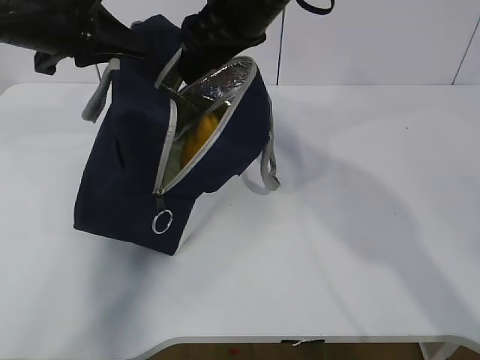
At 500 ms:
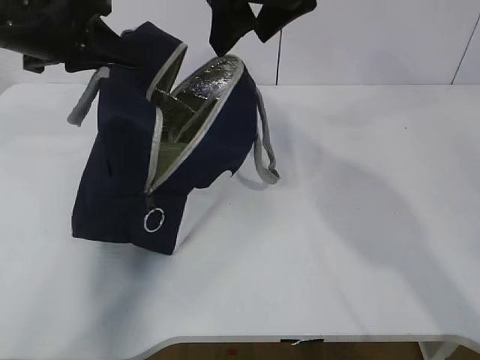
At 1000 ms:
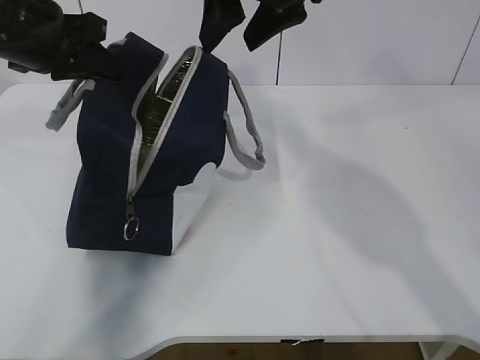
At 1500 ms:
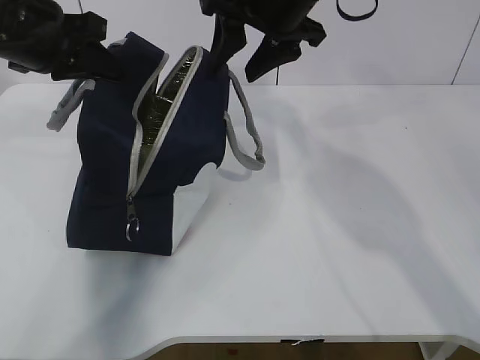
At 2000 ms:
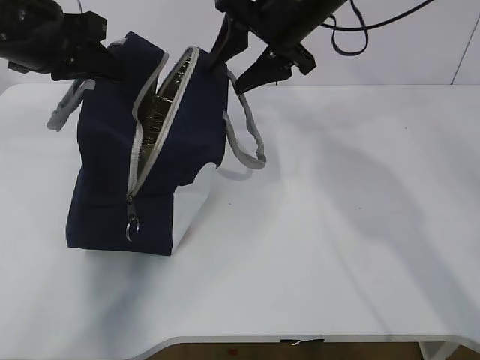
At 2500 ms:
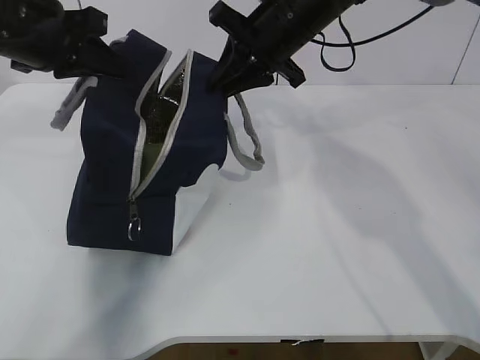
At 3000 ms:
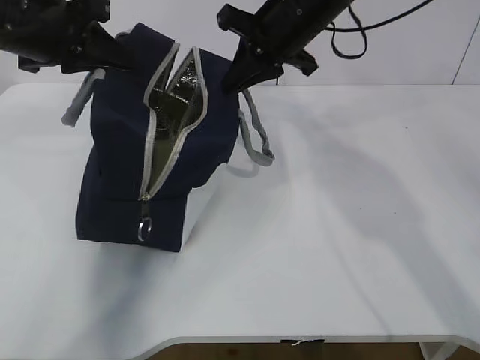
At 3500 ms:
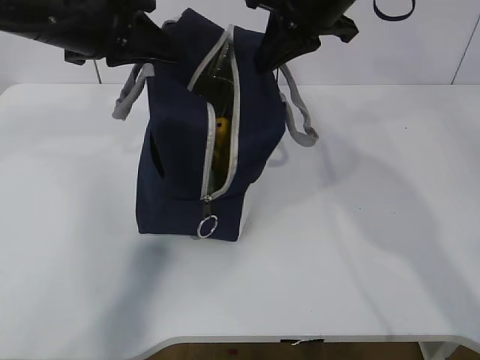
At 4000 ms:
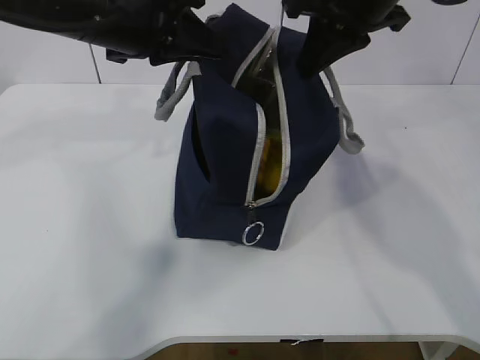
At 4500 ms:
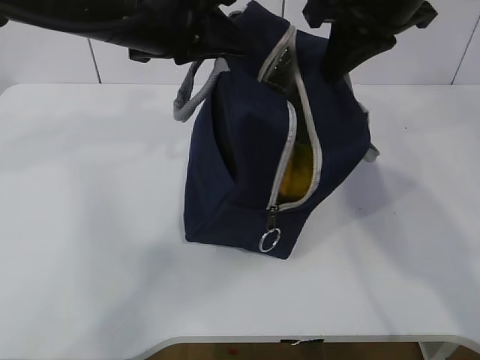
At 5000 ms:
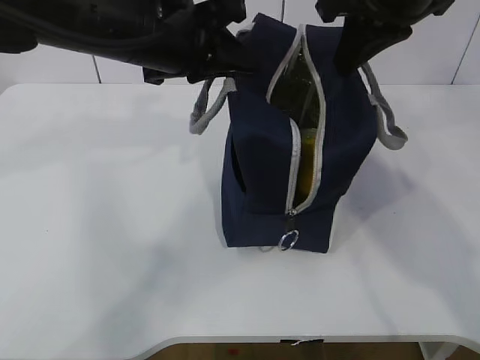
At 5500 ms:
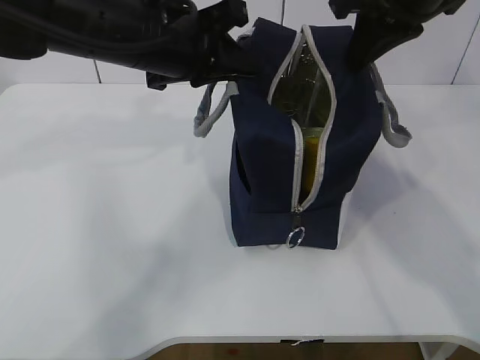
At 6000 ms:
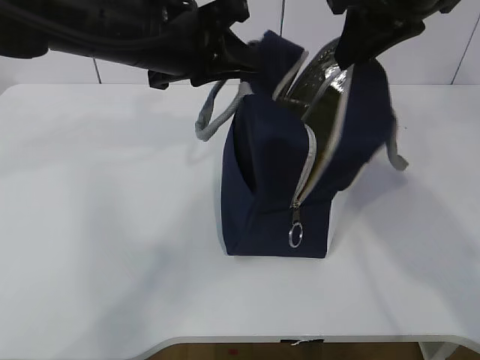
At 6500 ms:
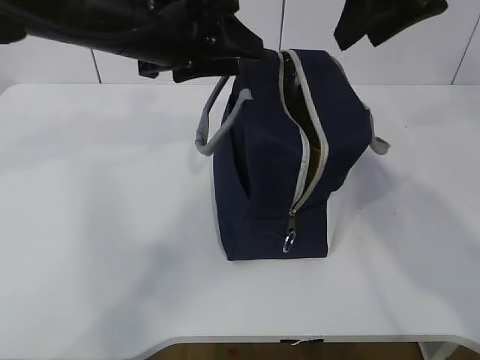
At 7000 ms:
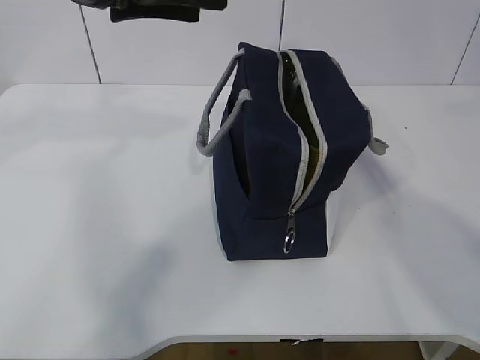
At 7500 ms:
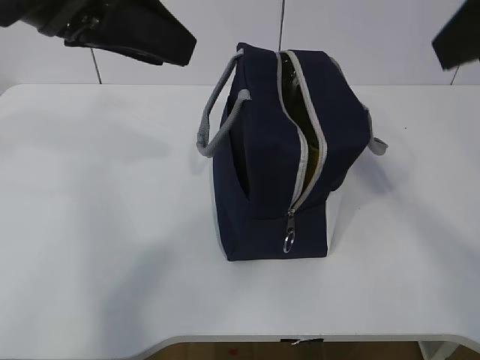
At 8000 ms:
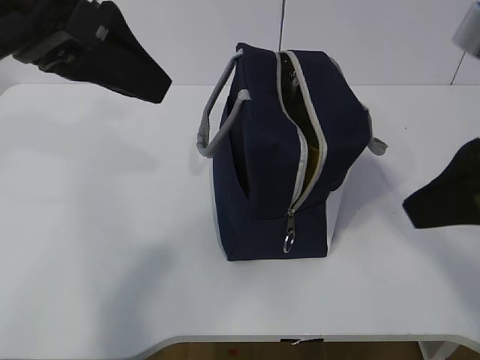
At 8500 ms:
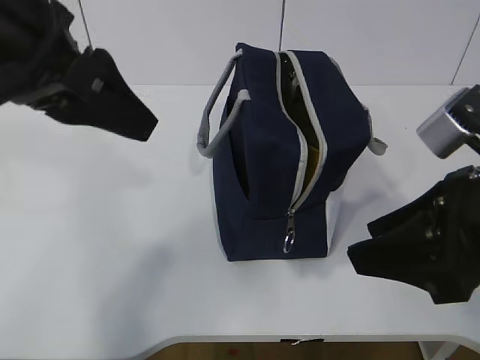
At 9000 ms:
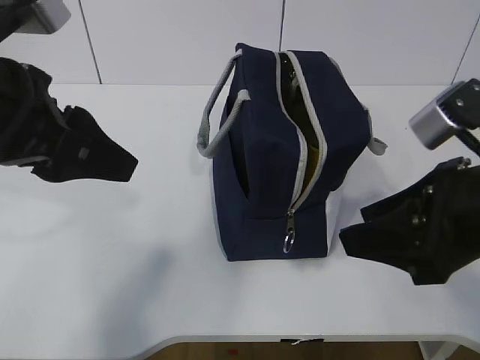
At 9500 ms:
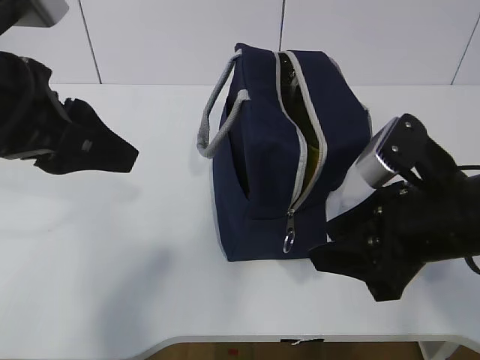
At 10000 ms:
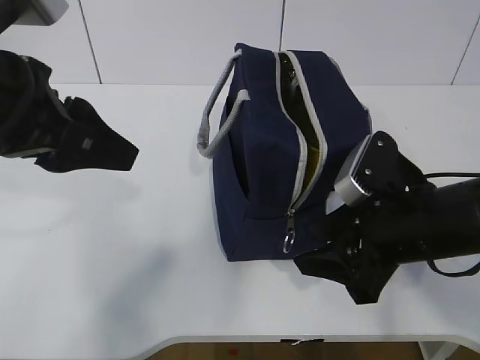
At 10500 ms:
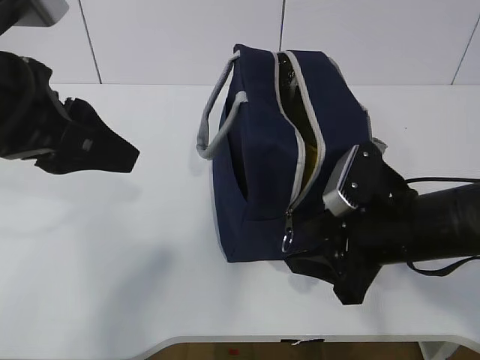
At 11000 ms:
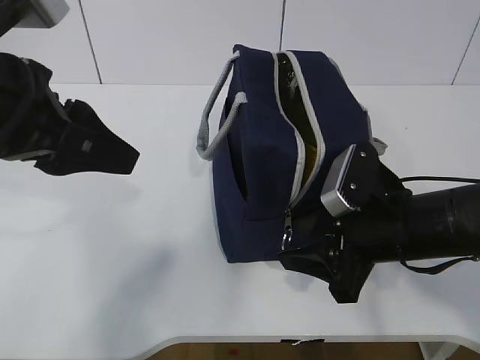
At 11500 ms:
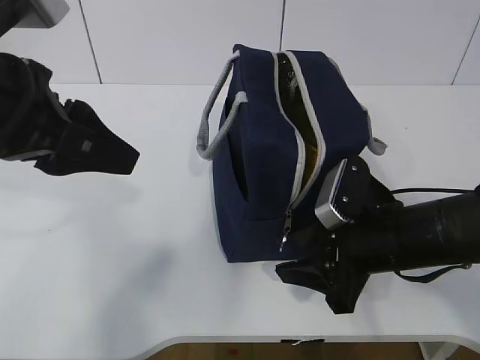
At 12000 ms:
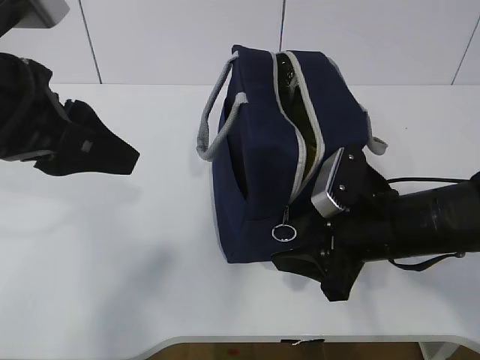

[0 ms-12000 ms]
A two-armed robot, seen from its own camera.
Step, 0 ms to 12000 ms: Grab the lunch bag with your left hand.
0 ms to 2000 ms: The right gripper is displaced to the right by roughly 5 cm.
2000 ms to 4000 ms: The left gripper travels to the right by roughly 10 cm; the right gripper heads backward, covering roughly 5 cm, and closes its fingers.
4000 ms to 6000 ms: The right gripper opens its fingers.
6000 ms to 8000 ms: The left gripper heads backward, upward and to the left, covering some 15 cm, and opens up, while the right gripper goes some 15 cm backward.
8000 ms to 10000 ms: The left gripper moves downward, roughly 5 cm; the right gripper moves downward, approximately 15 cm.
10000 ms to 12000 ms: There are only small adjustments of the grippers.

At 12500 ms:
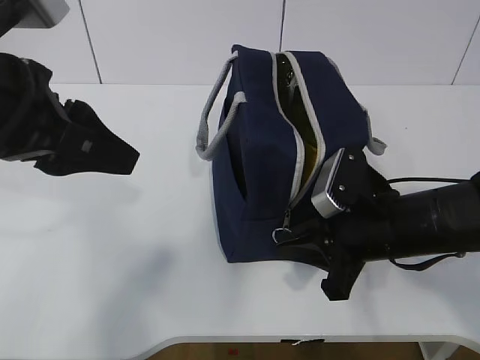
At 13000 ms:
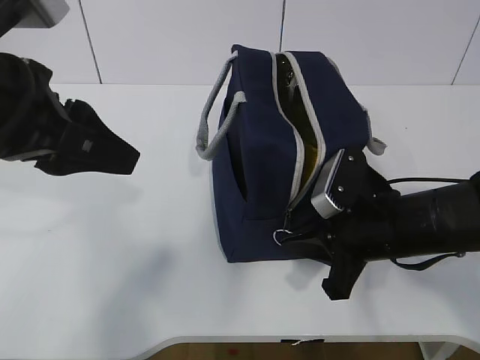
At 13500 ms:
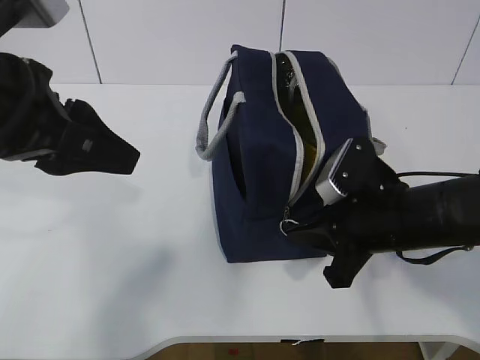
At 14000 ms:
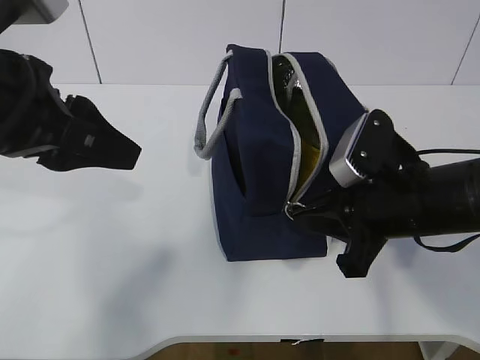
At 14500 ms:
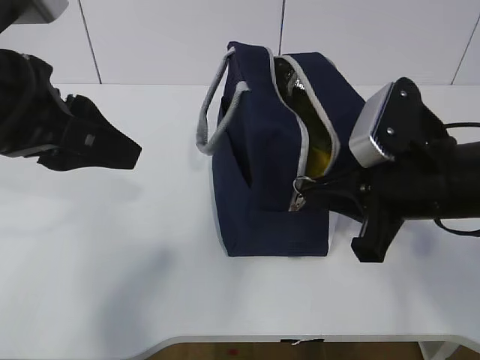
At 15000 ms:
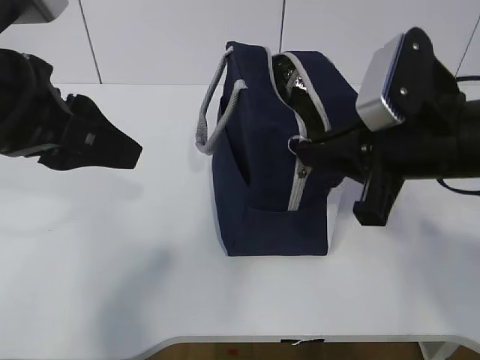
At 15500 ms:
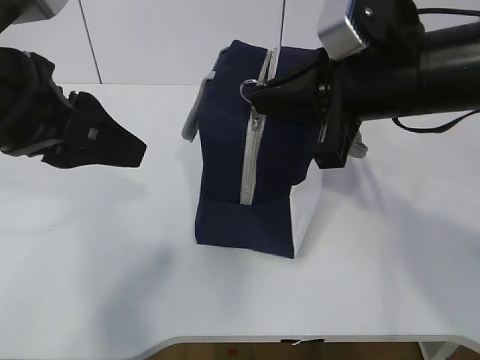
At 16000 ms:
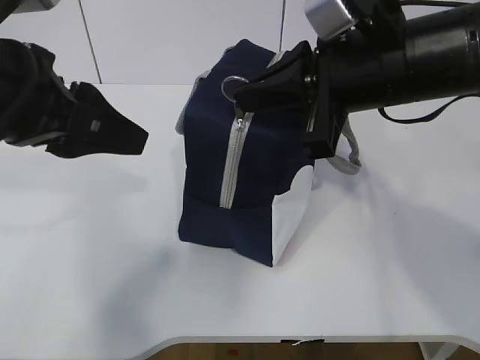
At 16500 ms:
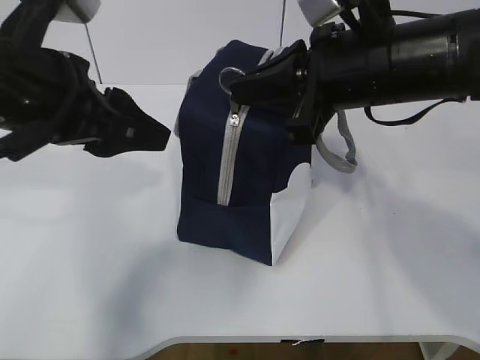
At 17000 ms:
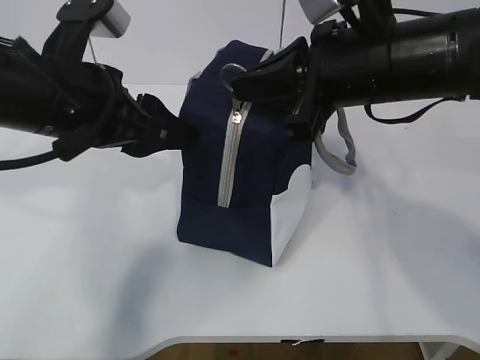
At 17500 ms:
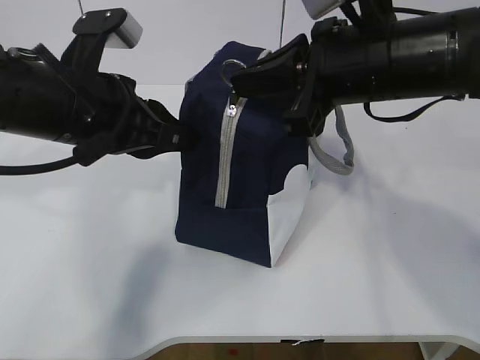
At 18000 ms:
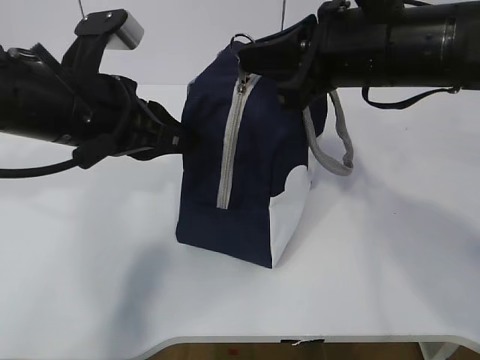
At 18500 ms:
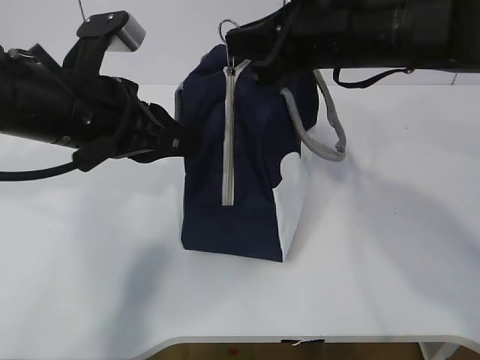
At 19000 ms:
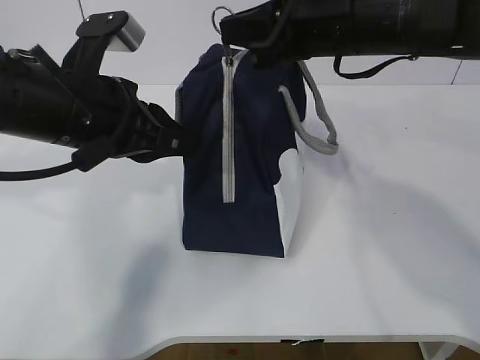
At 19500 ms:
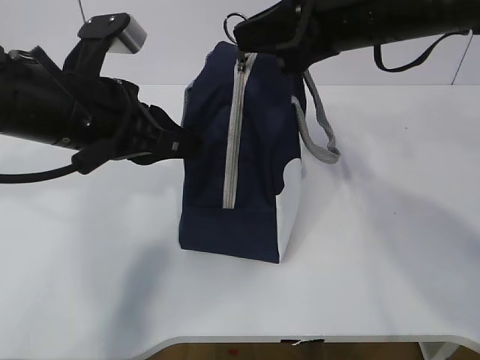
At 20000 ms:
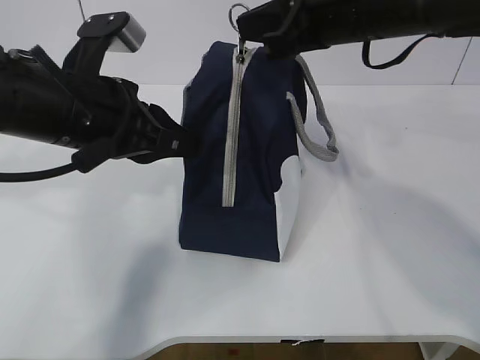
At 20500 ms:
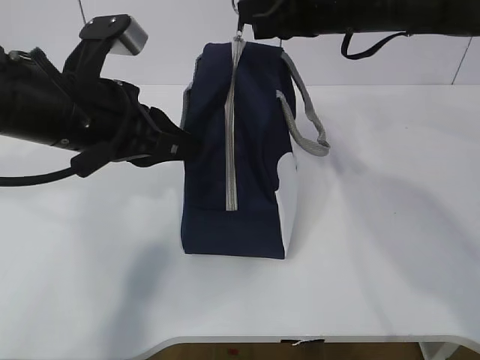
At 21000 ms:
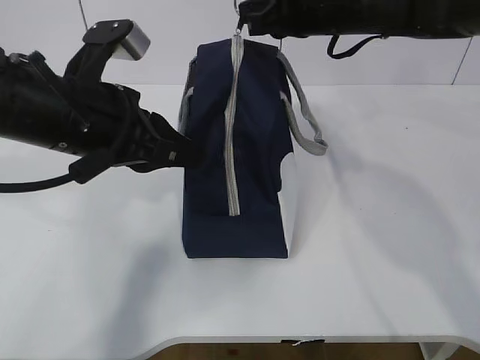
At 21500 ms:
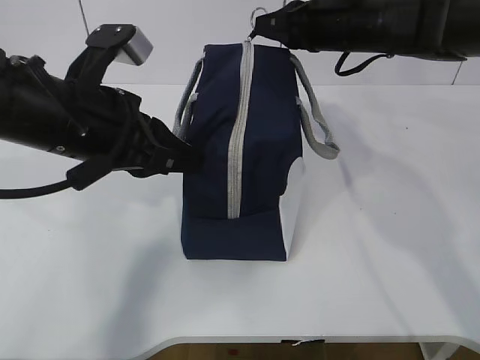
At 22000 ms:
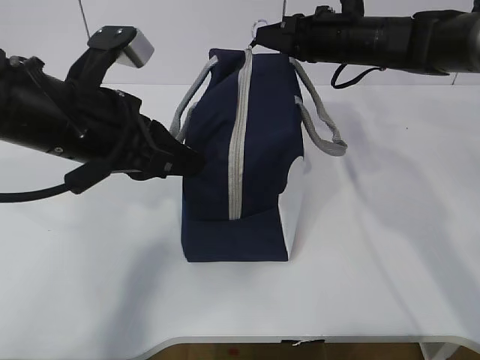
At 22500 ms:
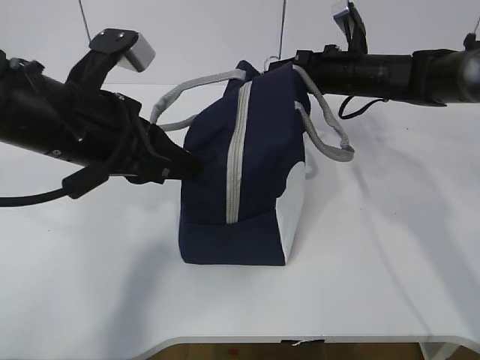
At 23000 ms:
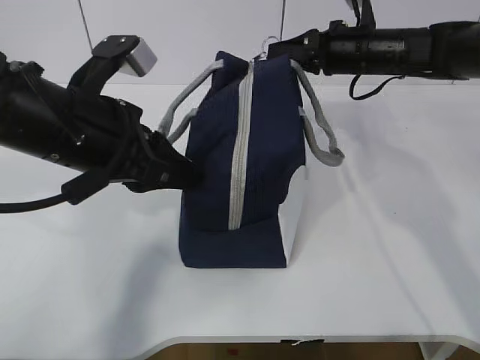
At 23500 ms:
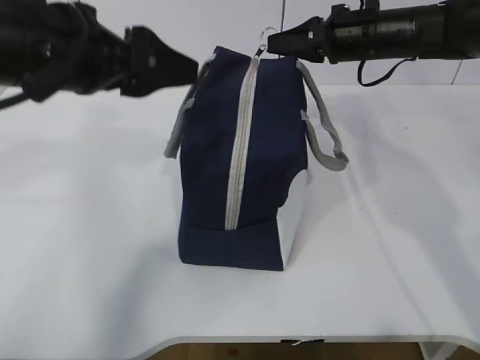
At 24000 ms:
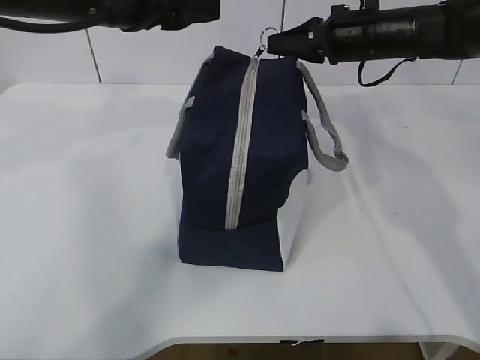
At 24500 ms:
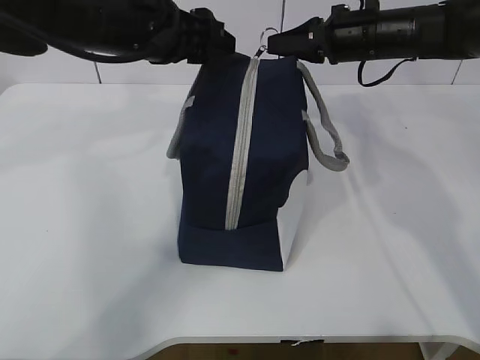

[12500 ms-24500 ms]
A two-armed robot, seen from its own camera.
Step, 12500 ms to 15000 ms: Pull the zipper with your right hand.
Step, 15500 ms to 17000 ms: Grab the lunch bag with your left hand.
12500 ms to 14500 ms: The right gripper travels upward by some 10 cm.
14500 ms to 16500 ms: The right gripper is displaced upward by approximately 10 cm.
16500 ms to 18500 ms: The right gripper heads forward, covering some 5 cm. The left gripper ends up some 5 cm from where it was, and closes up.
18500 ms to 20500 ms: The grippers move only a little.
20500 ms to 22500 ms: The right gripper is displaced downward, forward and to the right by roughly 20 cm.
22500 ms to 24500 ms: The left gripper goes approximately 10 cm forward, and opens up. The right gripper shifts roughly 5 cm upward.

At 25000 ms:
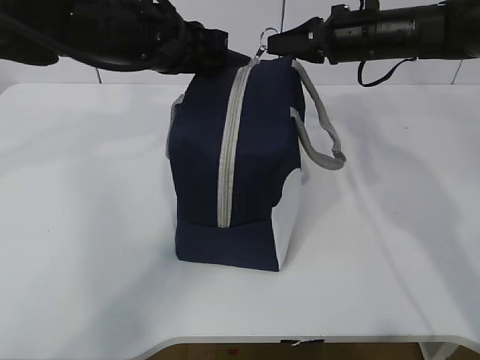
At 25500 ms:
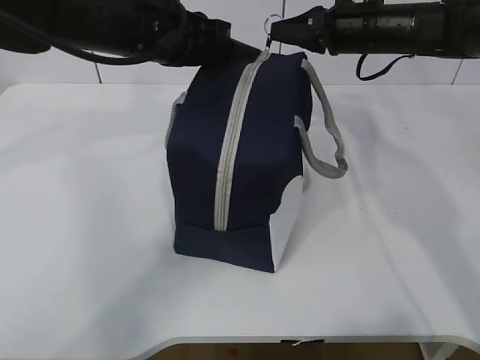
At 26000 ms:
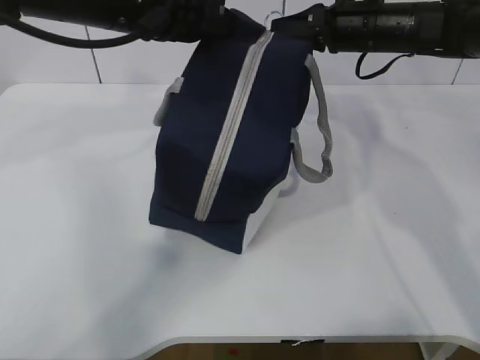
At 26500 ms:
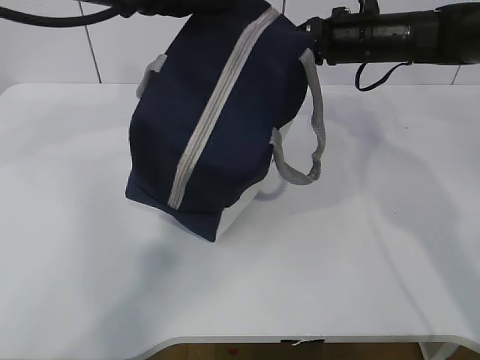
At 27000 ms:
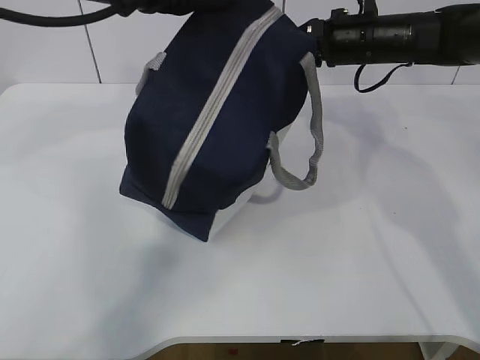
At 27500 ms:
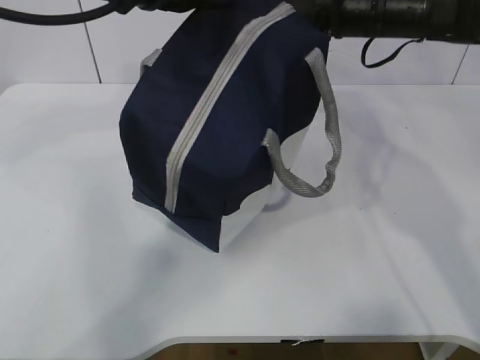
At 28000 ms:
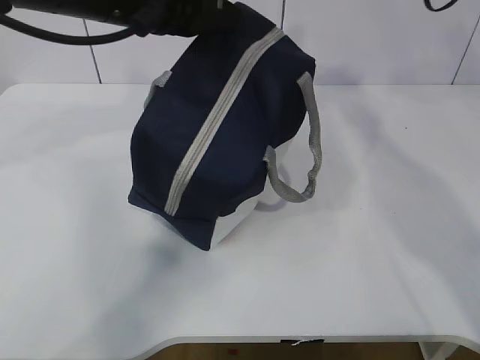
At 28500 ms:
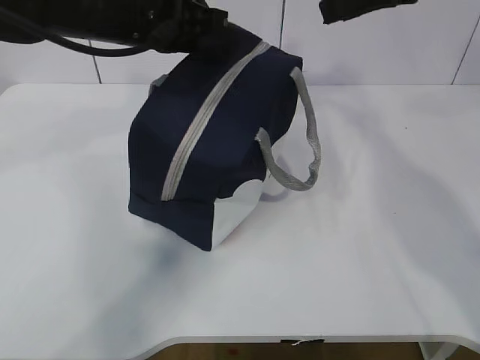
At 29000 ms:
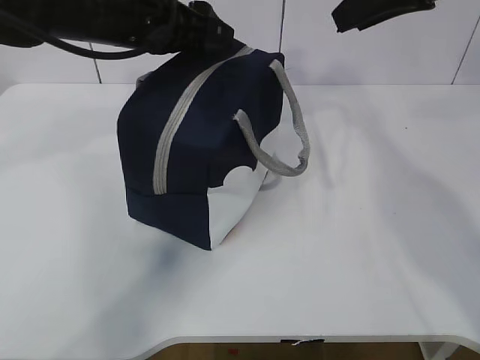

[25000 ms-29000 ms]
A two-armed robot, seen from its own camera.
25000 ms to 27000 ms: The left gripper travels upward by roughly 10 cm.
27000 ms to 29000 ms: The right gripper is displaced upward and backward by approximately 20 cm, and opens its fingers; the left gripper goes about 5 cm downward, and opens up.
